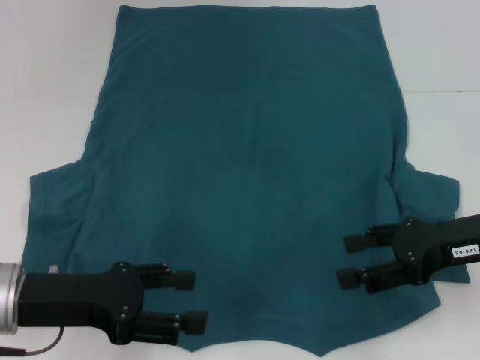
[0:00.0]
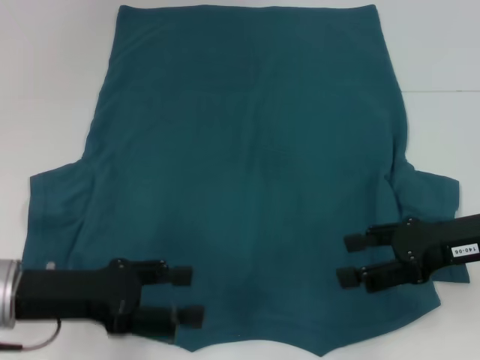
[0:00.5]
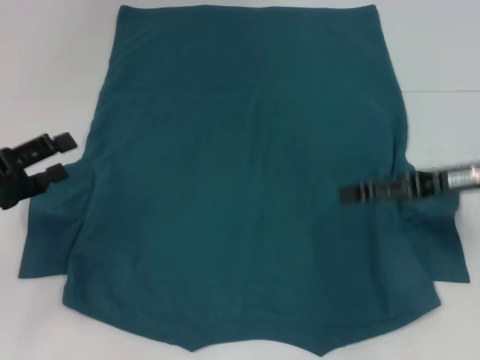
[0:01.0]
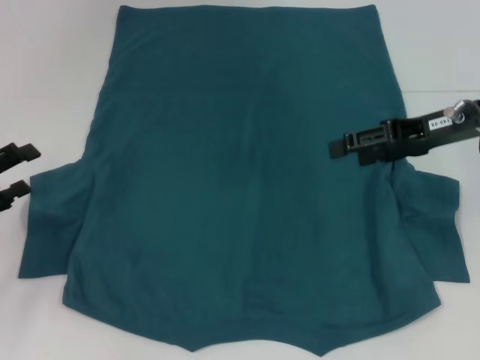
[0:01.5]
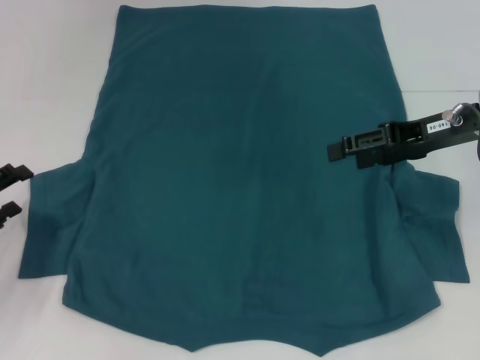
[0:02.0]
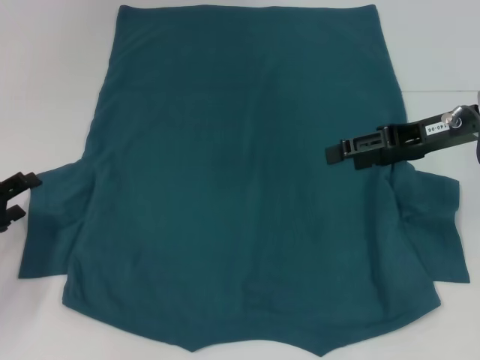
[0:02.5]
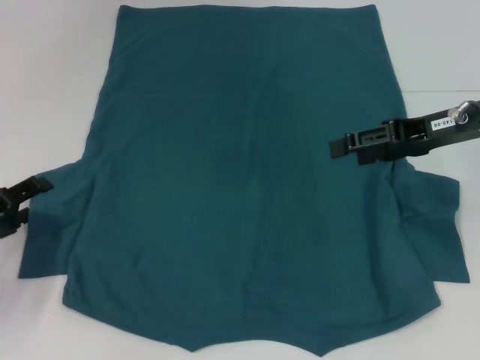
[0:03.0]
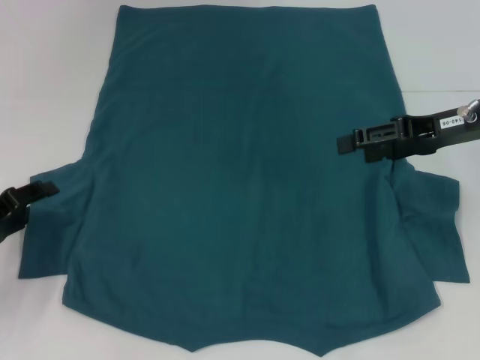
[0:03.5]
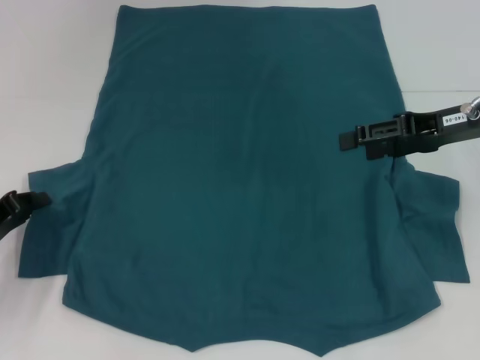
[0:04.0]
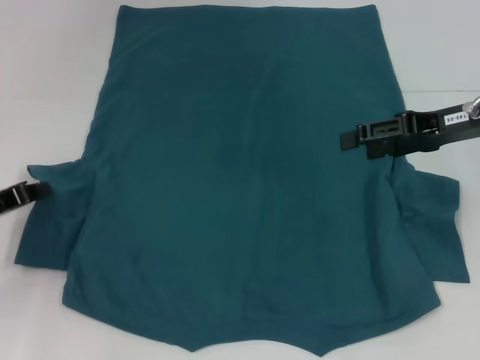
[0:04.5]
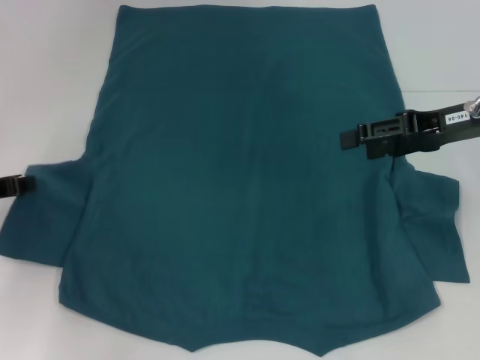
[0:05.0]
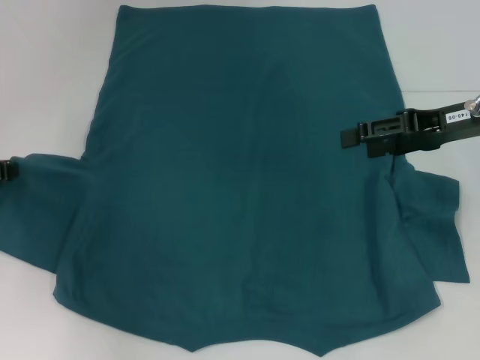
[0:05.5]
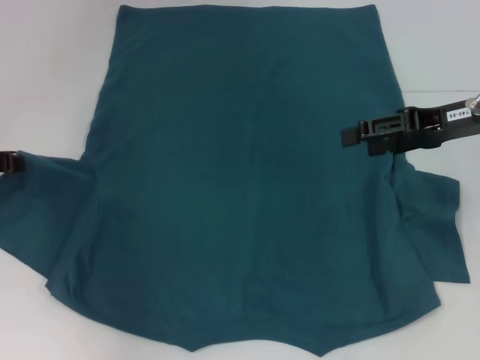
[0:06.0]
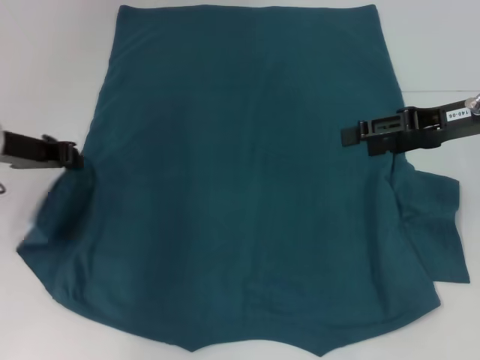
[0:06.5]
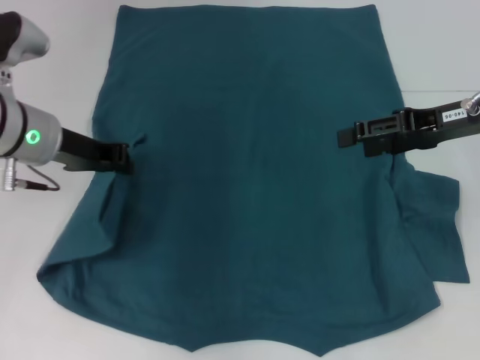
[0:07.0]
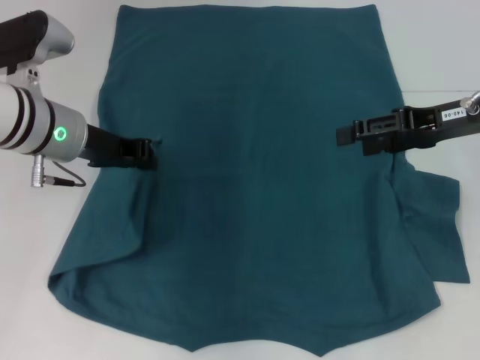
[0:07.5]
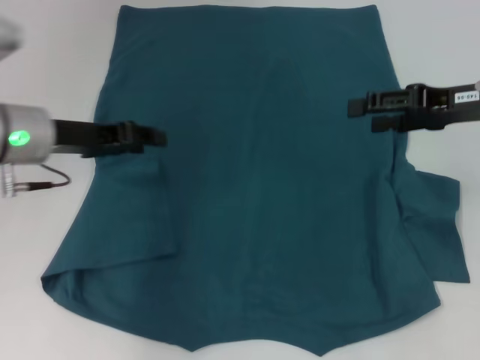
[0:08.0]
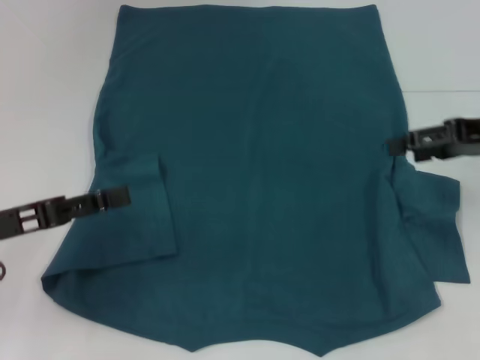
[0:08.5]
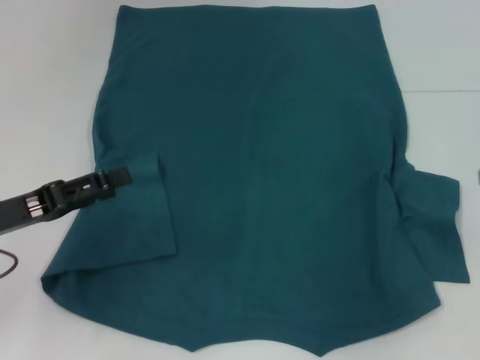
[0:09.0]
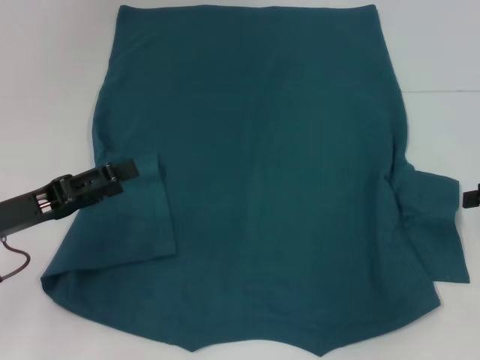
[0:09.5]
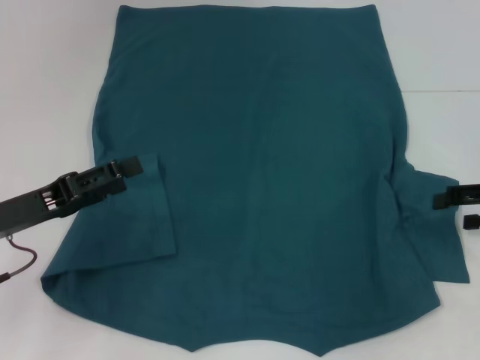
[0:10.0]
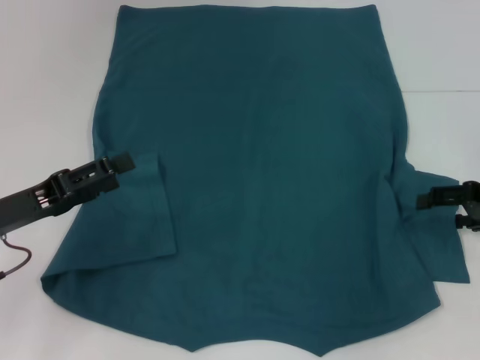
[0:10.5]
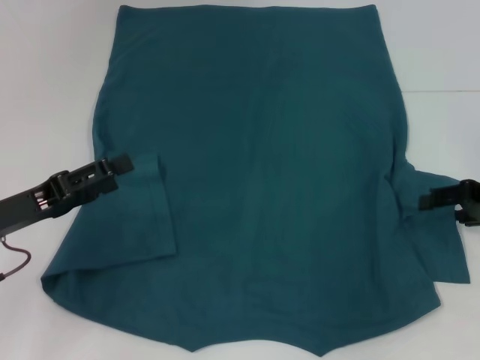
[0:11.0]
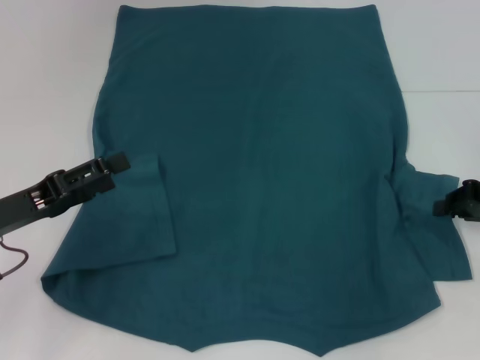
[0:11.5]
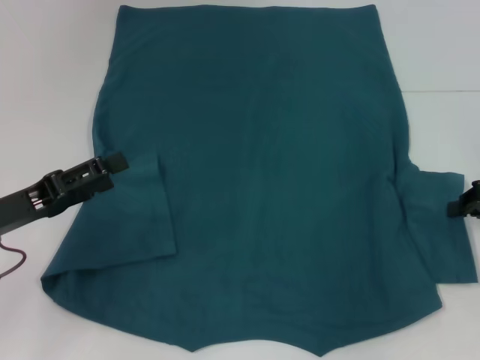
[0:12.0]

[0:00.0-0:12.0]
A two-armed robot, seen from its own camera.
Step, 0:00.0 to 0:08.0: Fold the bottom left sleeve with your left hand.
0:00.0 to 0:02.0: The right gripper heads forward, covering some 10 cm; the left gripper heads to the left, covering about 10 cm.
0:02.0 to 0:04.0: The left gripper closes.
0:04.0 to 0:06.0: The left gripper shifts some 10 cm upward and forward, and closes up.
0:06.0 to 0:08.0: The left gripper travels to the right by some 10 cm, and opens its fingers.
0:08.0 to 0:10.0: The left gripper shifts roughly 10 cm backward, downward and to the left, and opens. Meanwhile the right gripper moves to the right and downward, about 10 cm.
0:10.0 to 0:12.0: The right gripper closes.

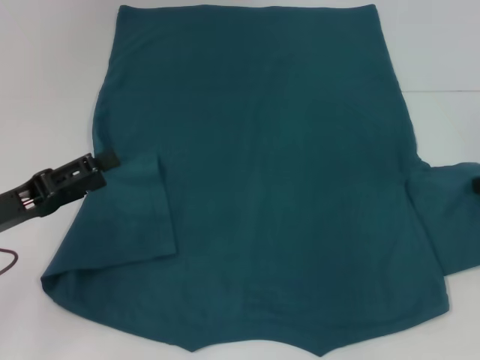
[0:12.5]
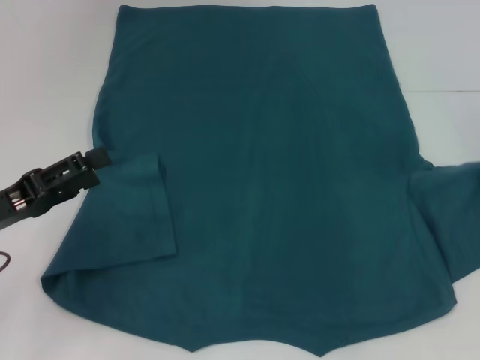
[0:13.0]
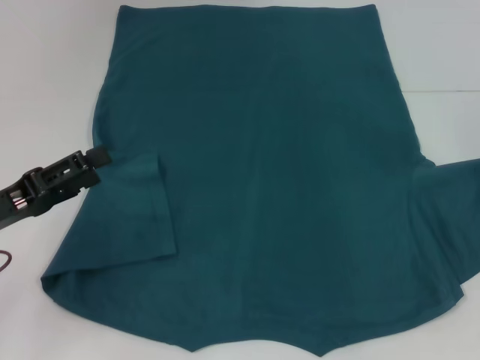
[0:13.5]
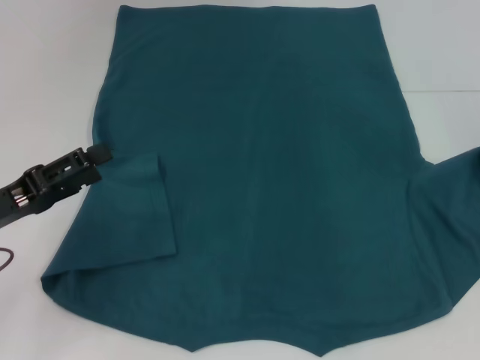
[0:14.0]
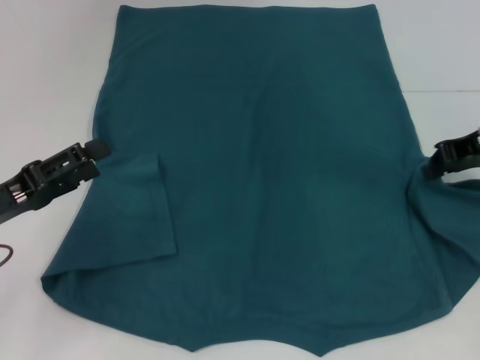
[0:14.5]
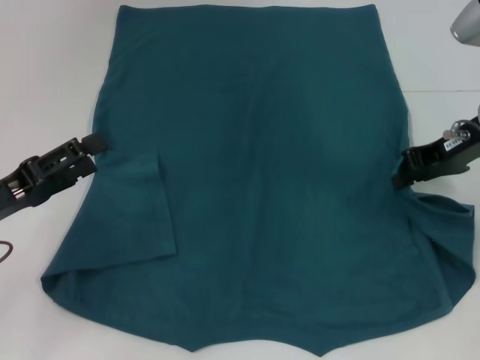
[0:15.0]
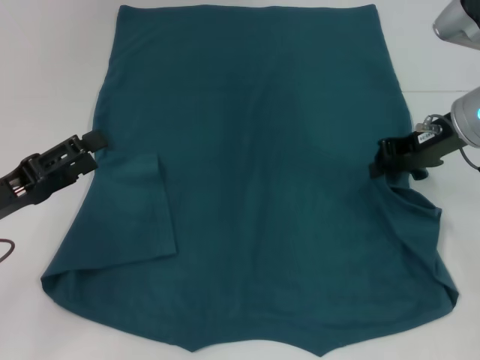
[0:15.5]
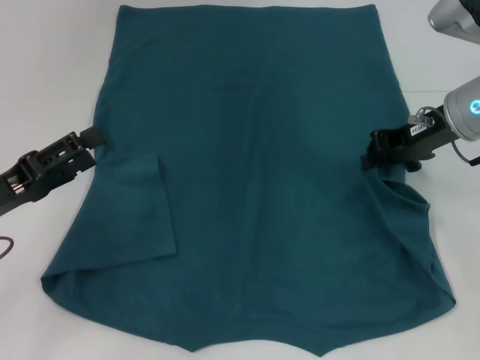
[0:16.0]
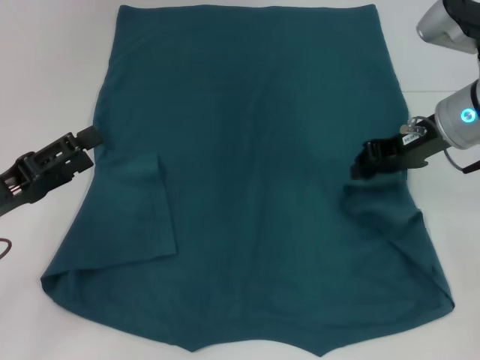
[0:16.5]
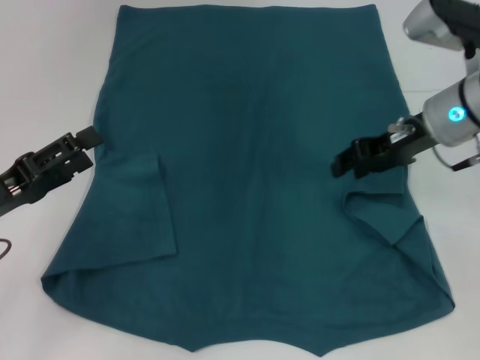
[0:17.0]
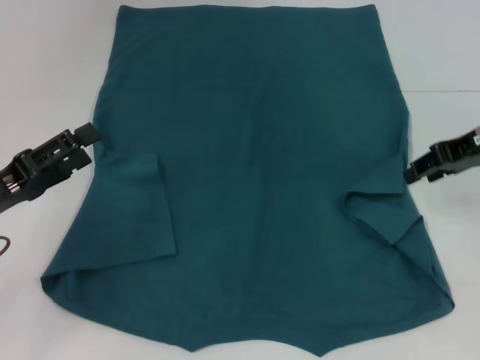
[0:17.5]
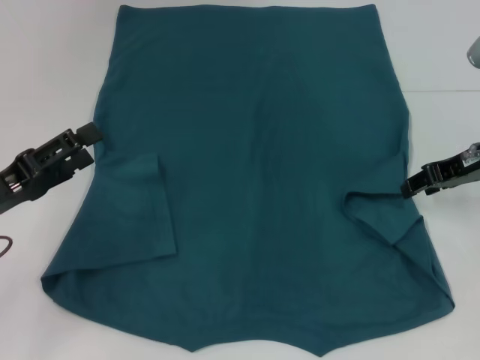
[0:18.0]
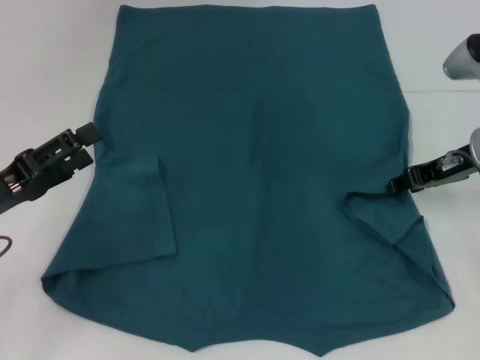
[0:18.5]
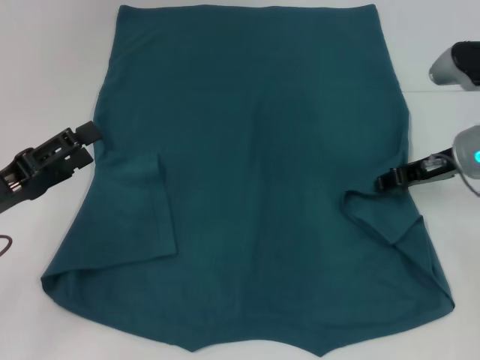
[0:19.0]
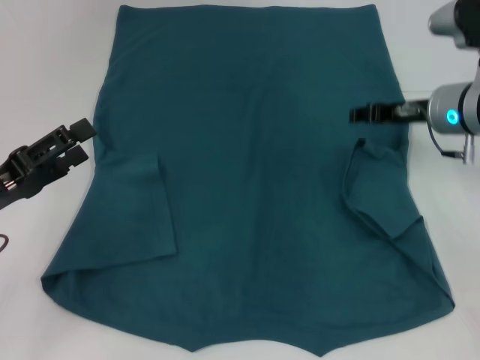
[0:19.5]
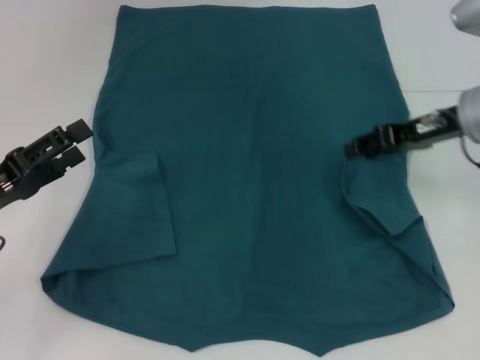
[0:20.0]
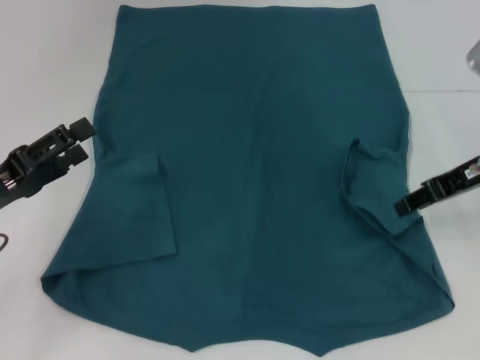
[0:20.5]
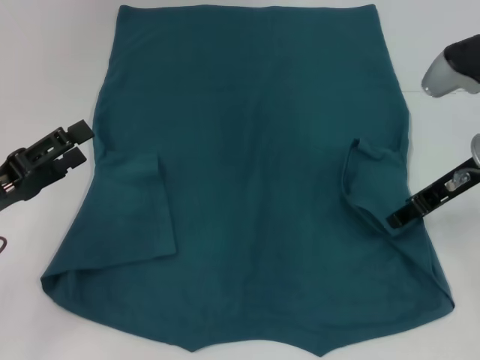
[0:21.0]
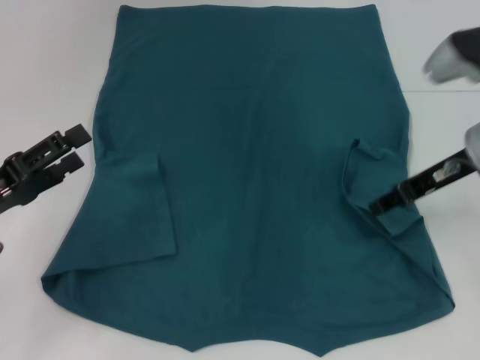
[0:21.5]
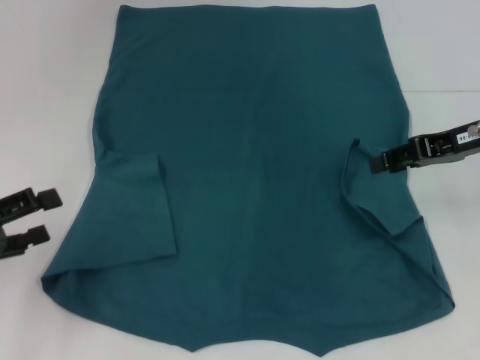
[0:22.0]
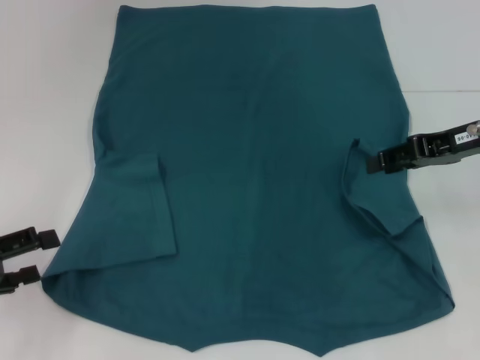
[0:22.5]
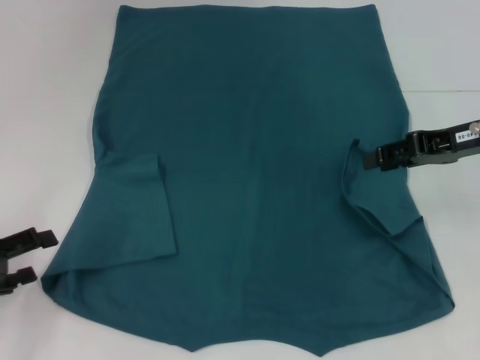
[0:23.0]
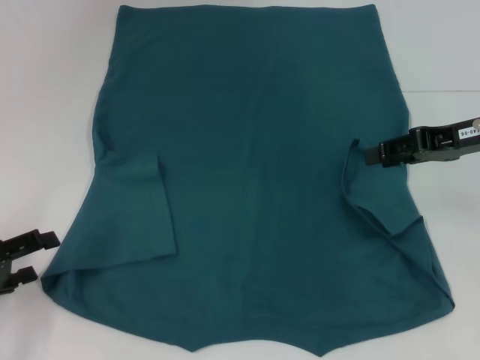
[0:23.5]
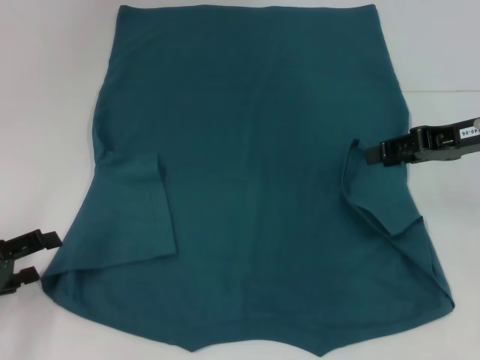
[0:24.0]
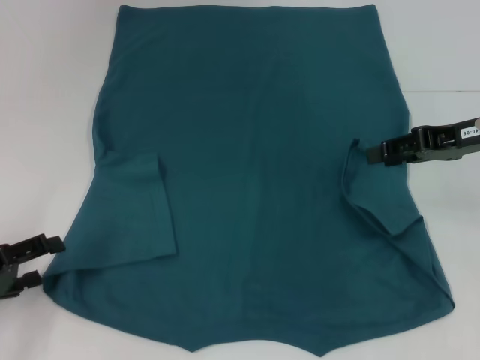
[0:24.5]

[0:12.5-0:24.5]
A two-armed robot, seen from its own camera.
Step, 0:12.5 to 0:20.0: Fold the bottom right sleeve to the right.
0:12.5 to 0:14.5: The right gripper heads to the left, covering approximately 5 cm.
0:14.5 to 0:16.5: The right gripper is displaced to the left by roughly 5 cm.
0:16.5 to 0:18.5: The right gripper shifts by roughly 5 cm, and opens up.
0:20.5 to 0:22.5: The left gripper goes about 5 cm to the left.
0:22.5 to 0:24.5: There are only small adjustments of the grippers.

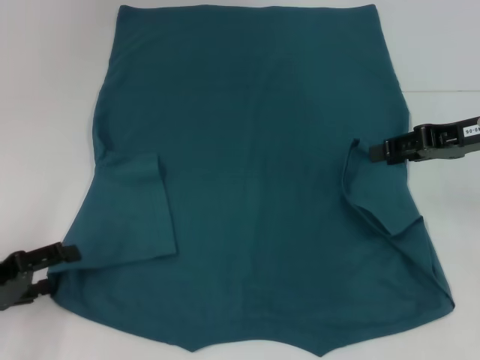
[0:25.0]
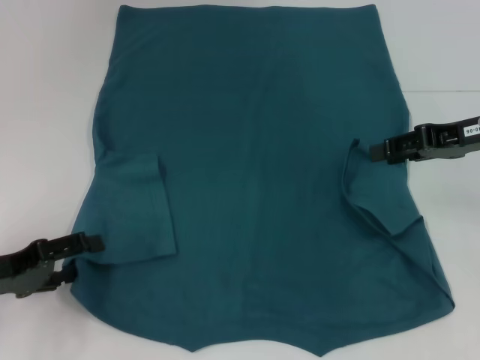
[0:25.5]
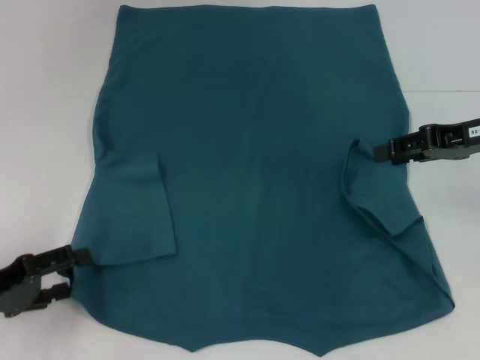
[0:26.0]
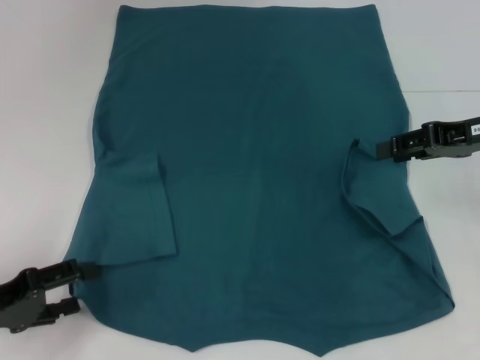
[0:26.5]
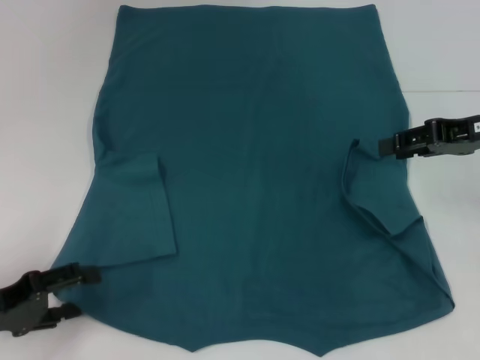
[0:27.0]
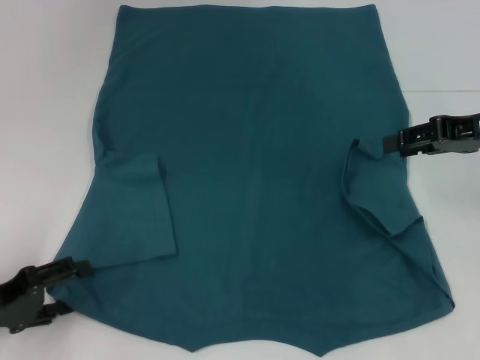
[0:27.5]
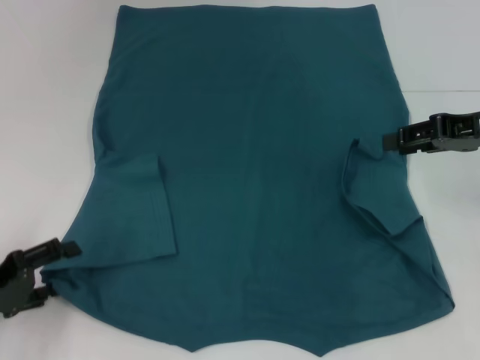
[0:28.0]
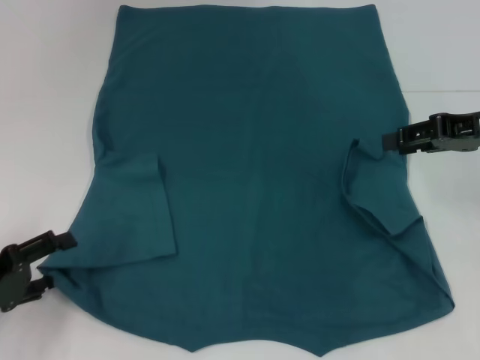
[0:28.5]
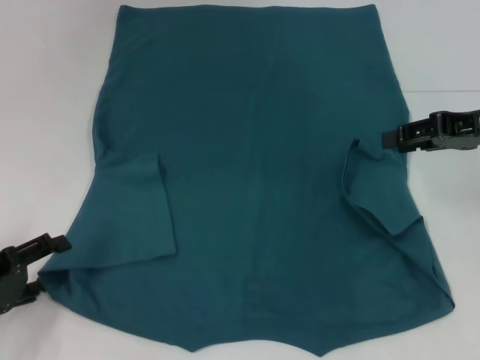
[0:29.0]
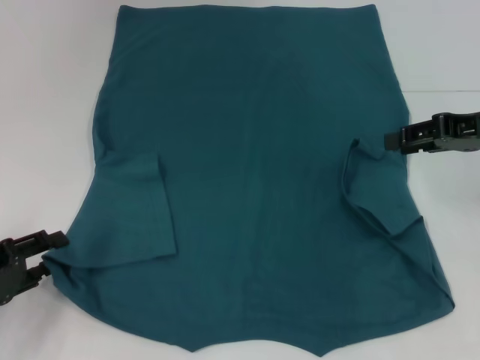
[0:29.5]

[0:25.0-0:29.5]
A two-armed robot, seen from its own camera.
0:25.0 to 0:29.5: The grippers make only small movements.
